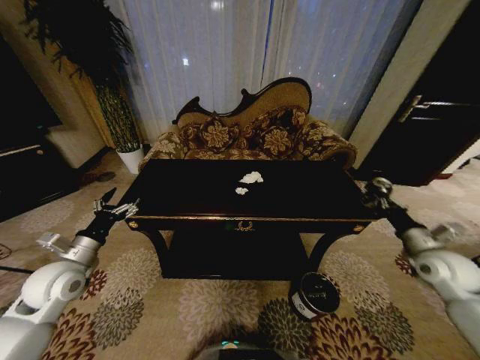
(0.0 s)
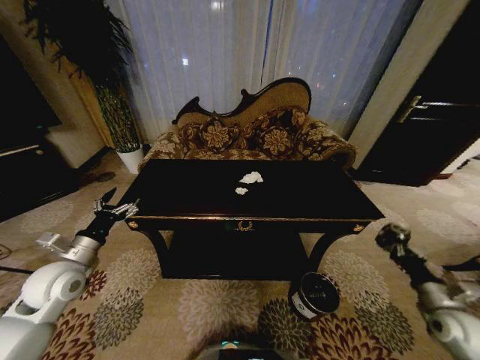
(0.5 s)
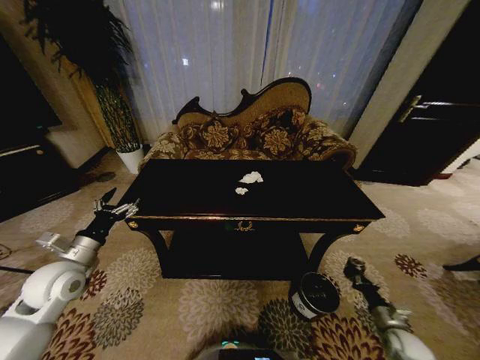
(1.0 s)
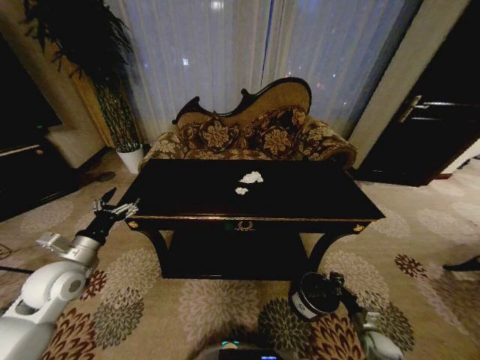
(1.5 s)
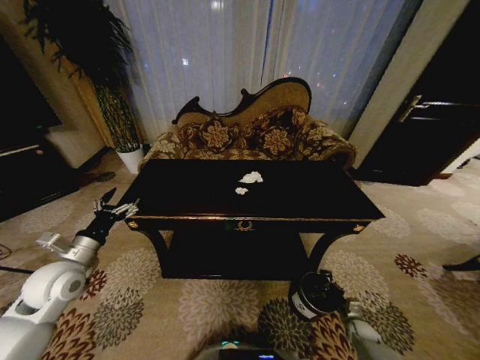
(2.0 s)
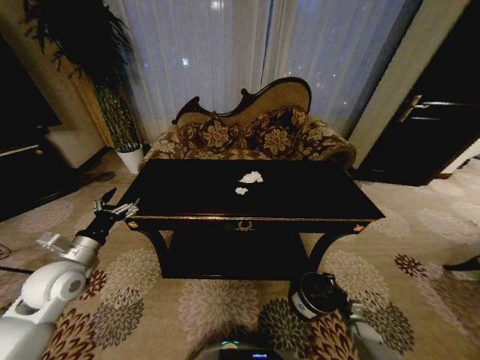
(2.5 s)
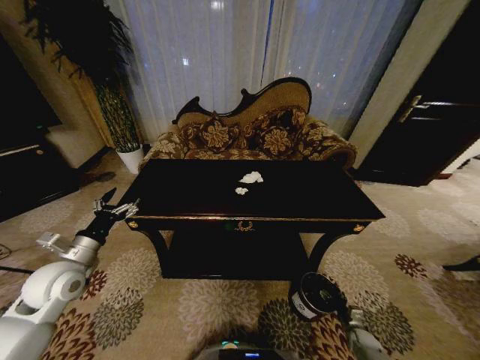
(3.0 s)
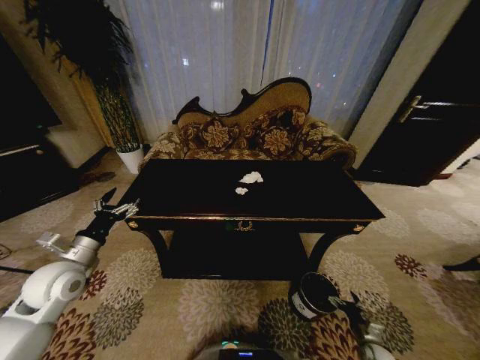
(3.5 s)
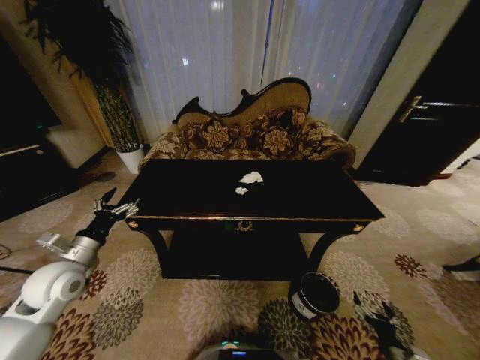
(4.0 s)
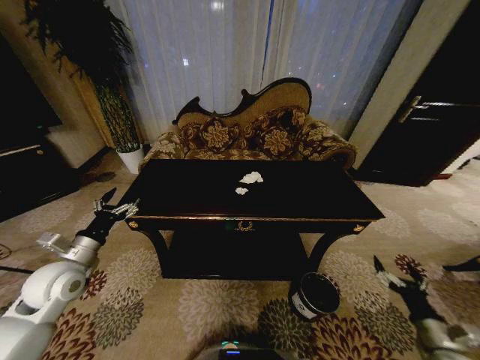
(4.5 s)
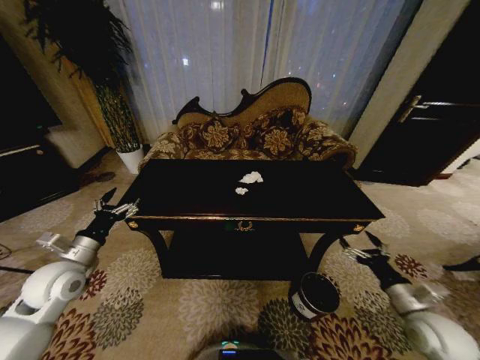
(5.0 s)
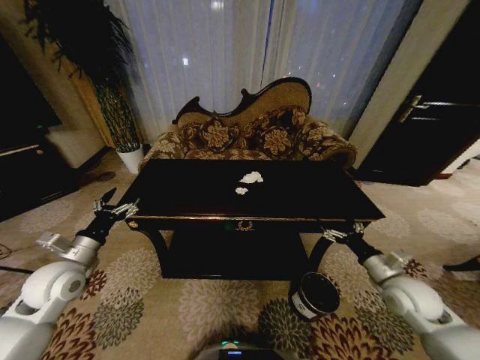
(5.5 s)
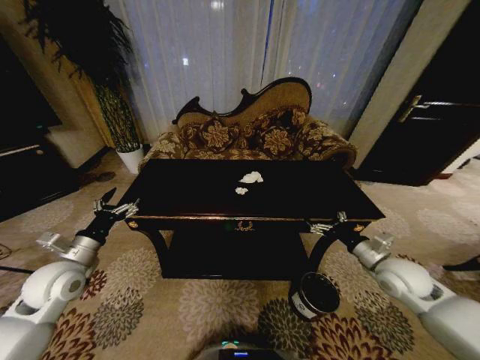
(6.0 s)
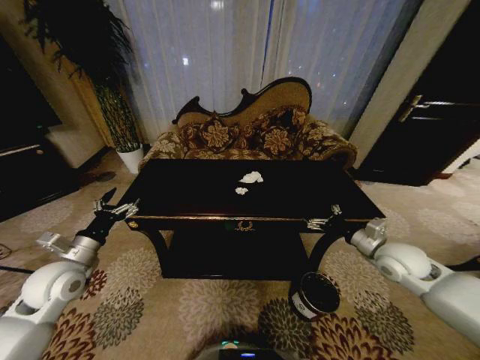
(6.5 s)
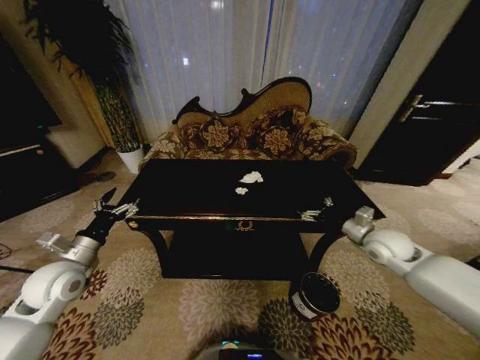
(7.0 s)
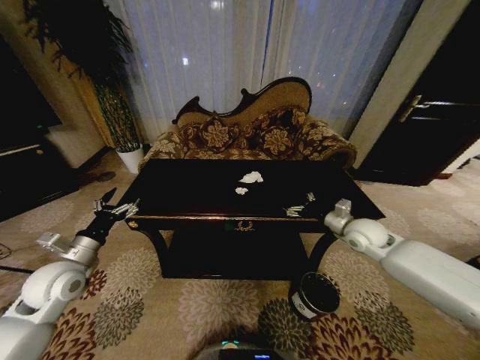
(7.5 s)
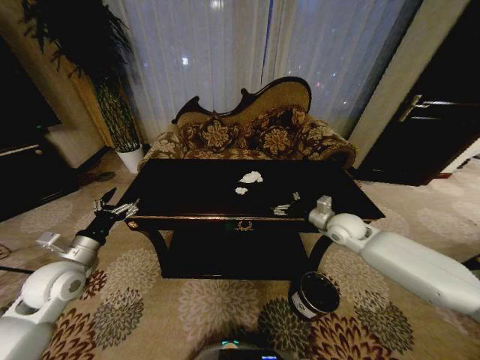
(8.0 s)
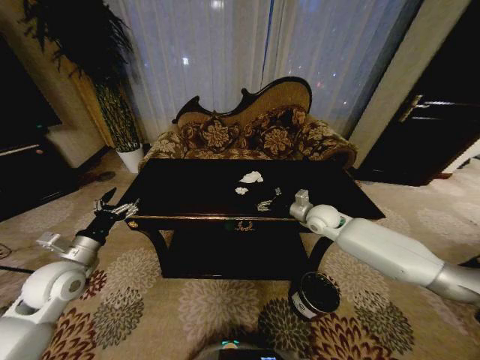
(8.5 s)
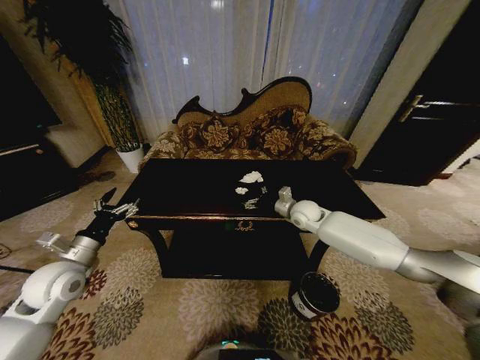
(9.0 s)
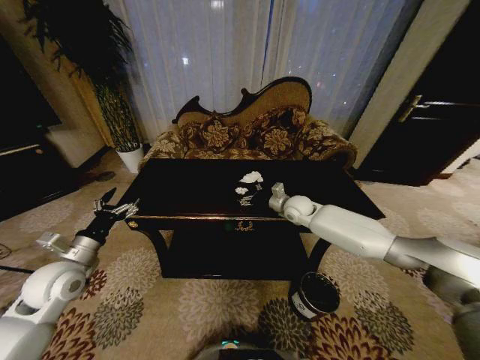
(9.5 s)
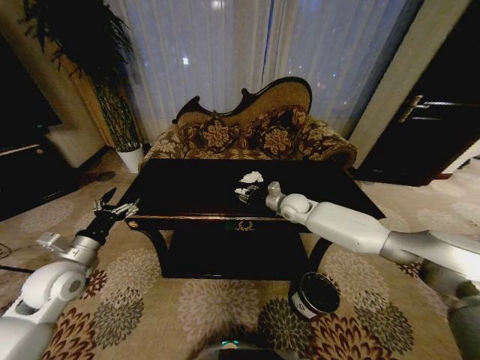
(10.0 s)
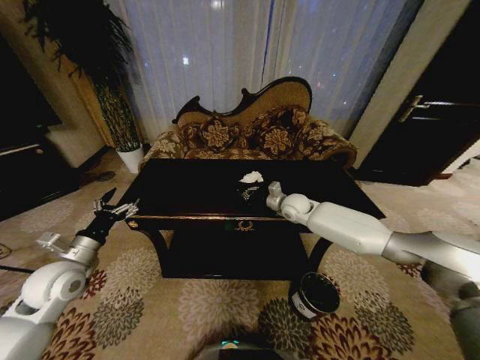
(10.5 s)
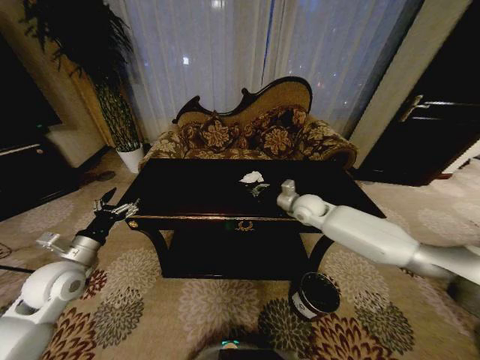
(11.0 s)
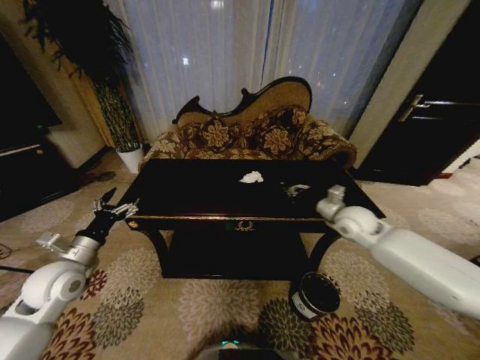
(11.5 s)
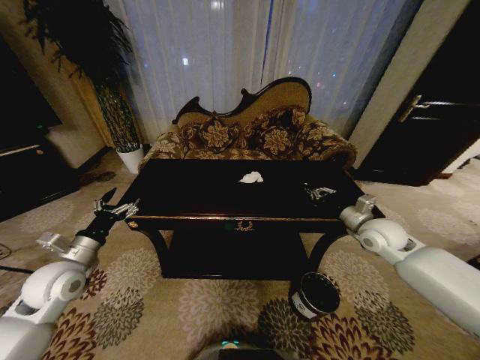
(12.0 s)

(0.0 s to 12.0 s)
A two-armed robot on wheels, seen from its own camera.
Task of the whole recording: Move to the front of the table and place the trash on the table into the trash bin.
0.0 s - 2.0 s: The right gripper travels downward by approximately 35 cm.
2.0 s - 4.0 s: The right gripper travels backward and upward by roughly 15 cm, and opens.
4.0 s - 6.0 s: The right gripper shifts roughly 35 cm upward and forward.
6.0 s - 8.0 s: The right gripper is displaced forward and to the left by approximately 15 cm.
8.0 s - 10.0 s: The right gripper heads to the left and forward, covering some 15 cm, and closes up.
10.0 s - 12.0 s: The right gripper goes approximately 25 cm to the right and backward, and closes its fingers.

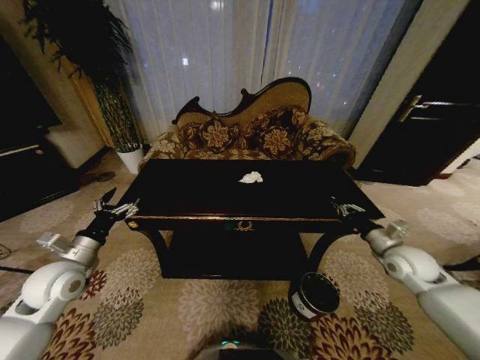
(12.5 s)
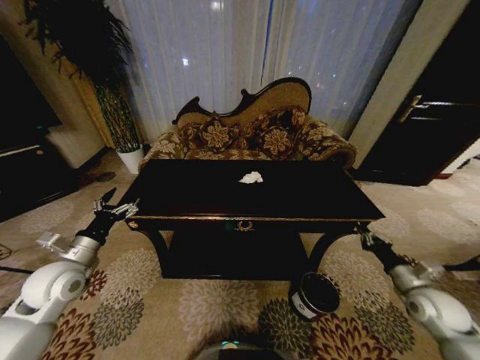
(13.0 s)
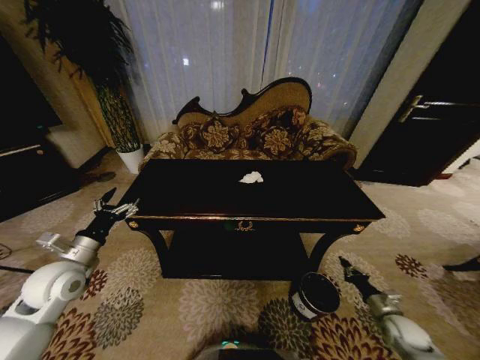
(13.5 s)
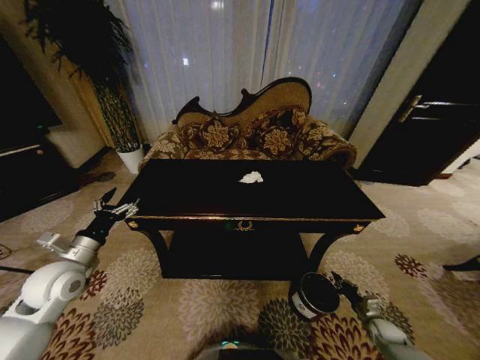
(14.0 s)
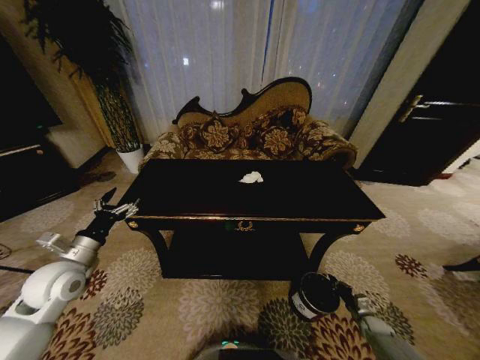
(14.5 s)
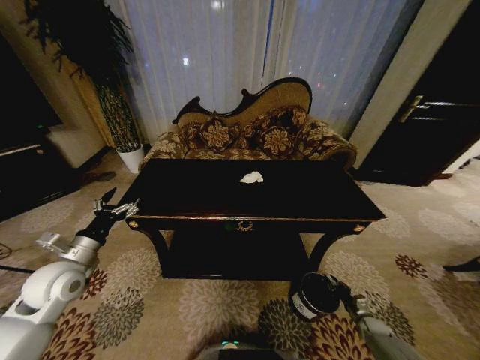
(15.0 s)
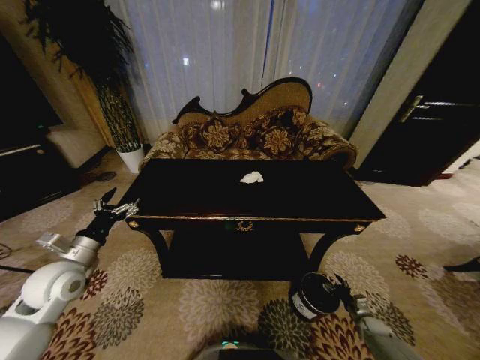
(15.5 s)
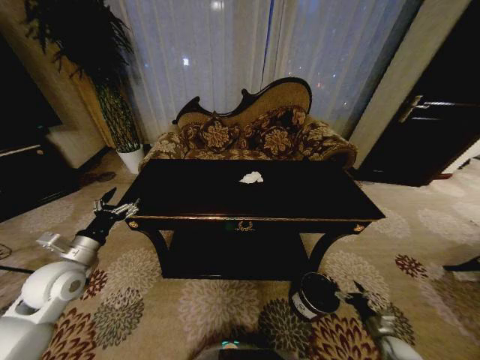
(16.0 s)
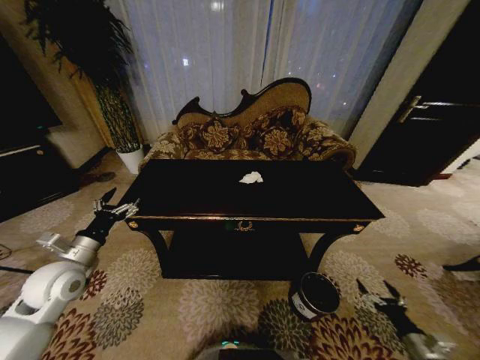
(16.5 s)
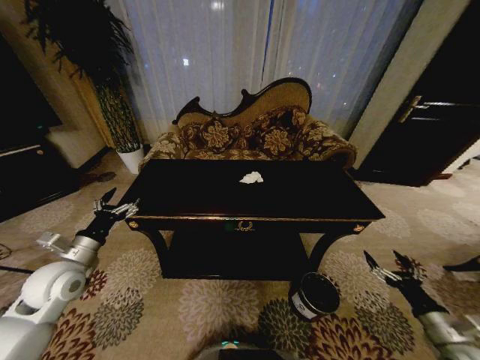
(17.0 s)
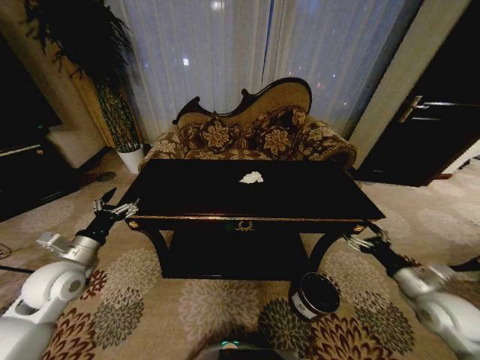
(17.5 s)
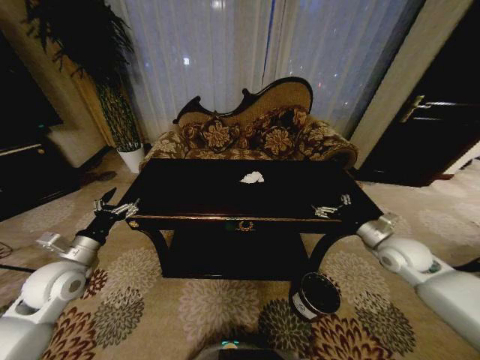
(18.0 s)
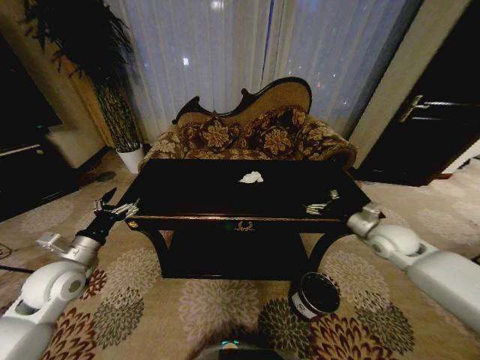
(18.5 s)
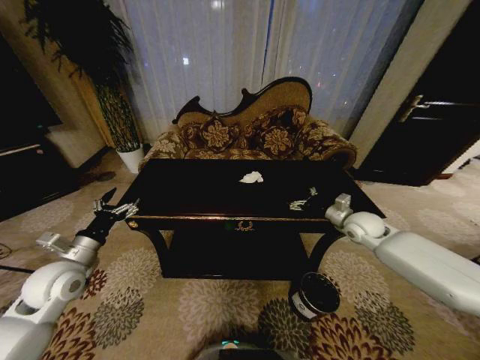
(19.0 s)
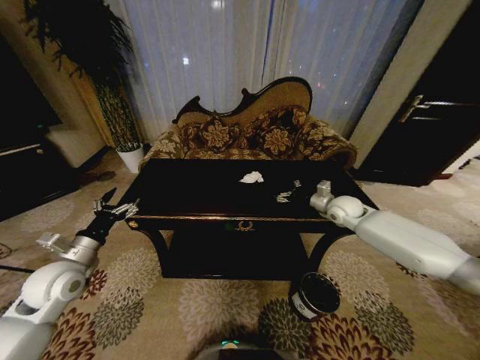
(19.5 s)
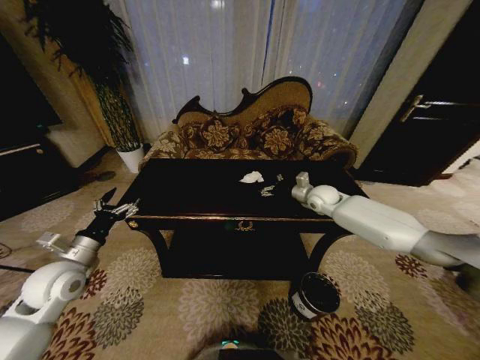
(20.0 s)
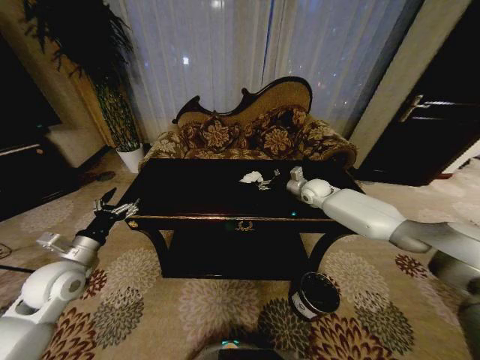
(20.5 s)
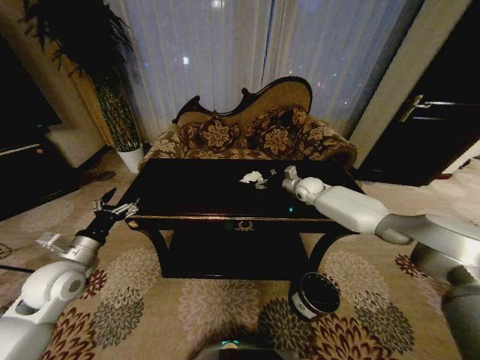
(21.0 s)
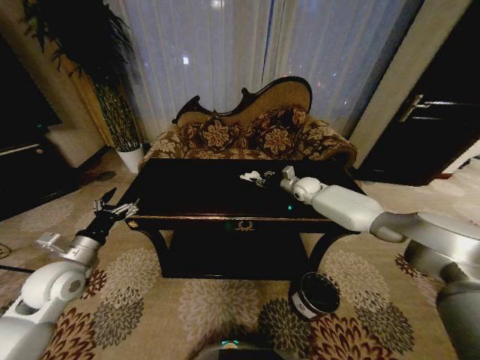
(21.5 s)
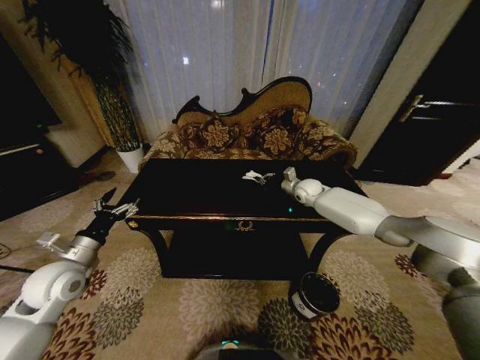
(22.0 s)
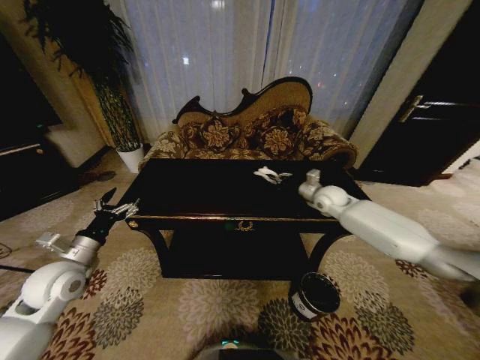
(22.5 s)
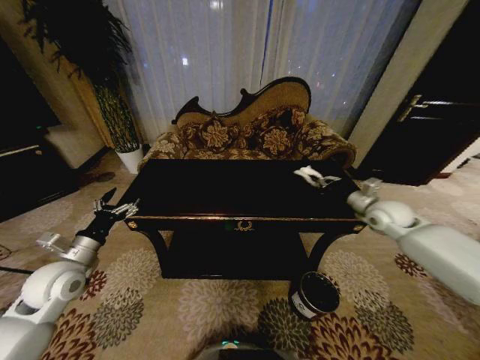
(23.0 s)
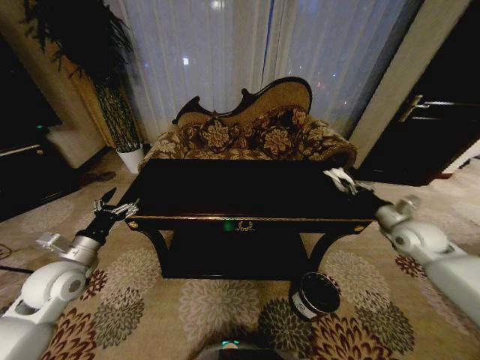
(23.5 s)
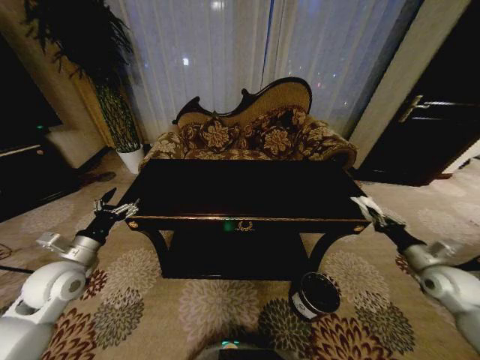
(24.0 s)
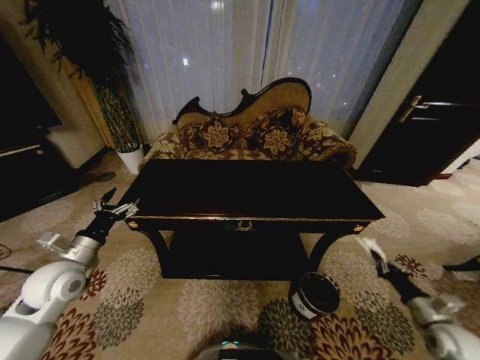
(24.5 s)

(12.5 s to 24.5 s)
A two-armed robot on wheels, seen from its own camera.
Task of the whole recording: Move to the front of the table and place the trash on the table into the trash bin.
12.5 s - 14.5 s: The right gripper moves downward, approximately 35 cm.
14.5 s - 16.5 s: The right gripper travels upward and backward by about 20 cm, and opens its fingers.
16.5 s - 18.5 s: The right gripper is displaced forward and upward by about 35 cm.
18.5 s - 20.5 s: The right gripper heads forward and to the left, covering roughly 25 cm.
20.5 s - 22.5 s: The right gripper shifts by some 5 cm, and closes up.
22.5 s - 24.5 s: The right gripper is displaced backward, to the right and downward by about 50 cm.

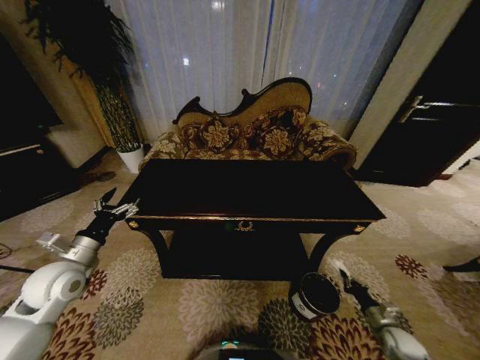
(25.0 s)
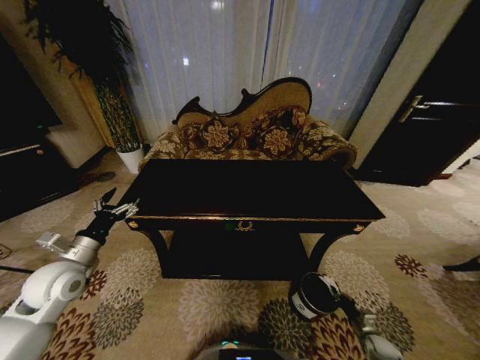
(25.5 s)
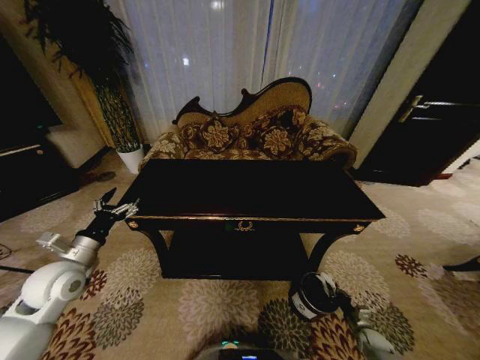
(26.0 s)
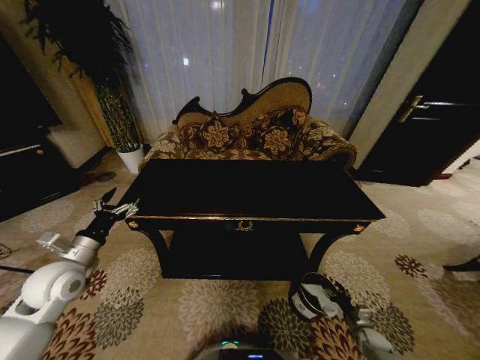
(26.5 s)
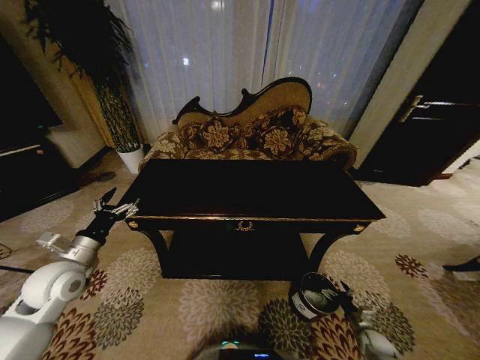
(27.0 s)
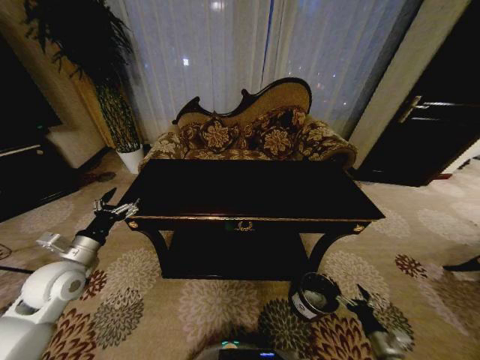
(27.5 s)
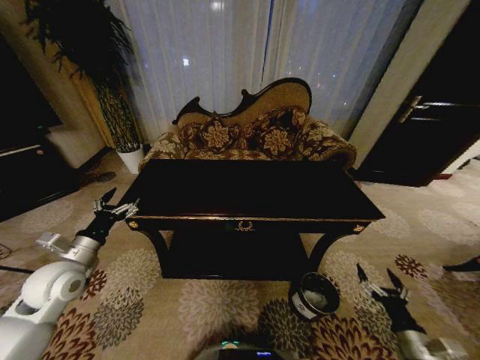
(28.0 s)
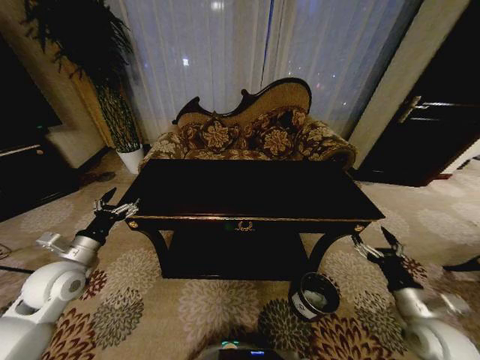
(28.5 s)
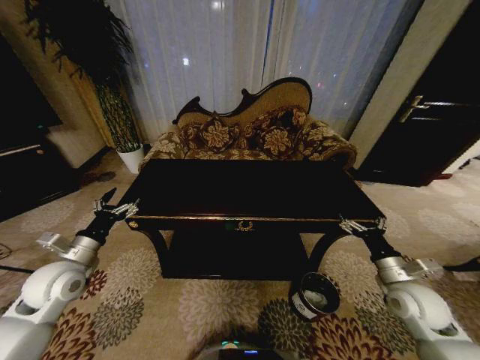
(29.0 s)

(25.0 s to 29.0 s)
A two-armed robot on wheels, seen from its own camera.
Task of the whole recording: Move to the front of the table and place the trash on the table into the trash bin.
25.0 s - 27.0 s: The right gripper moves downward, about 10 cm, and opens.
27.0 s - 29.0 s: The right gripper goes approximately 30 cm upward.
